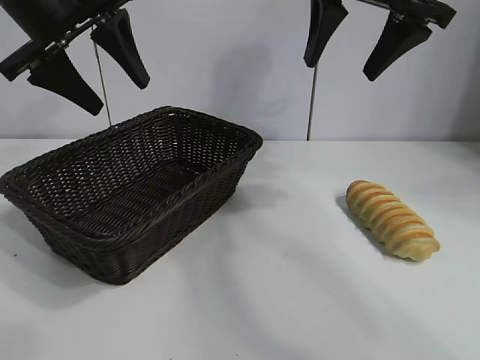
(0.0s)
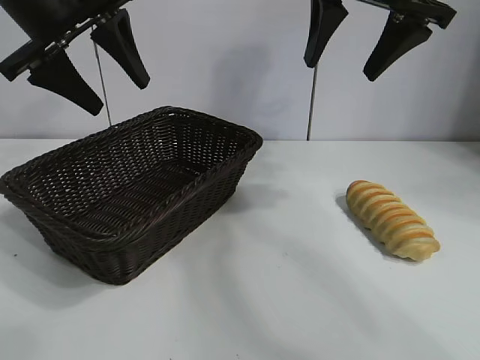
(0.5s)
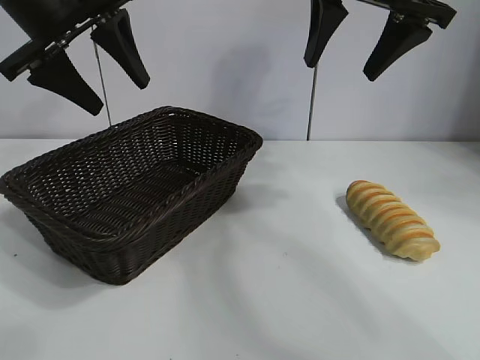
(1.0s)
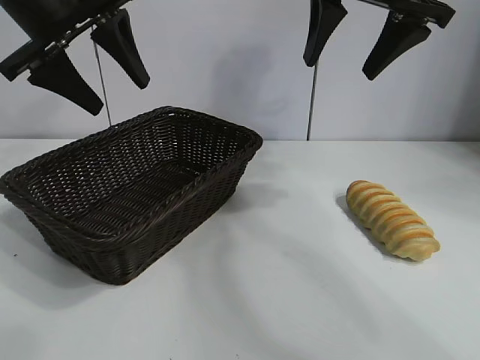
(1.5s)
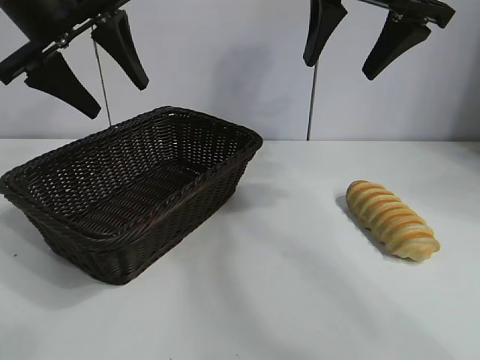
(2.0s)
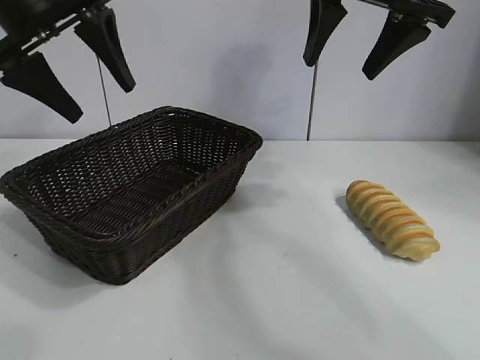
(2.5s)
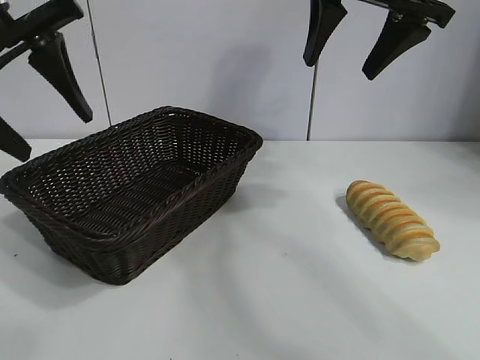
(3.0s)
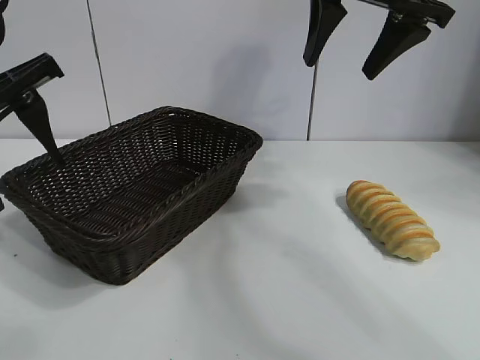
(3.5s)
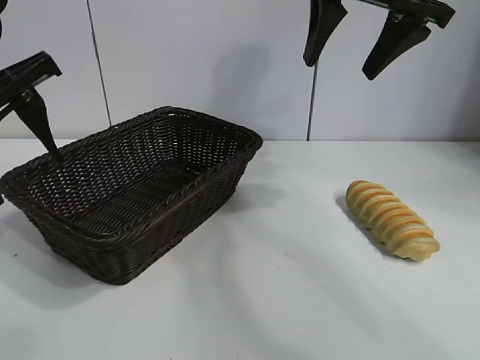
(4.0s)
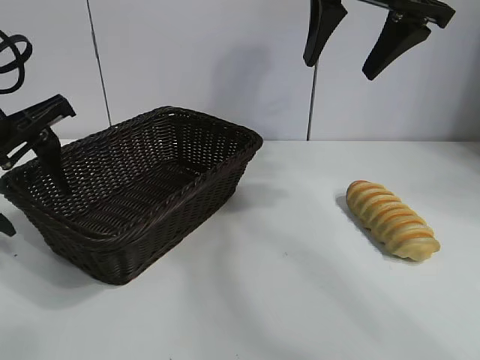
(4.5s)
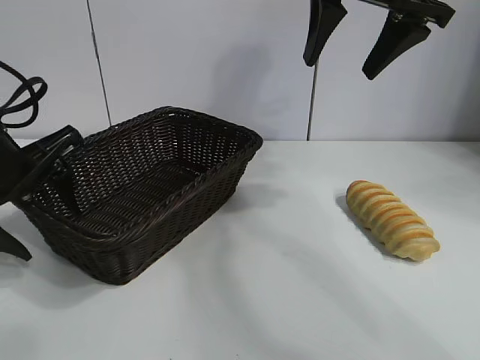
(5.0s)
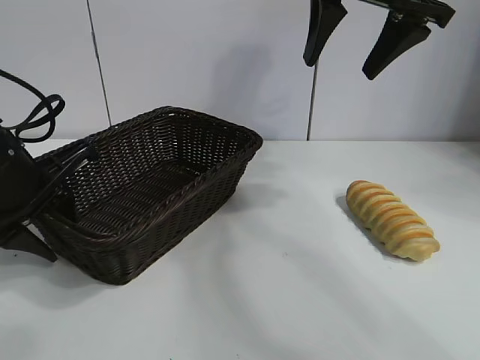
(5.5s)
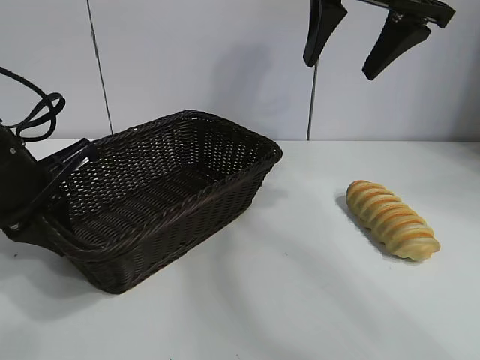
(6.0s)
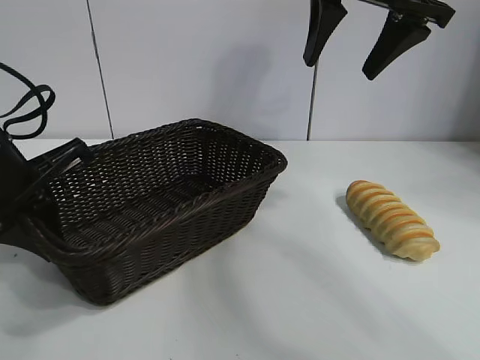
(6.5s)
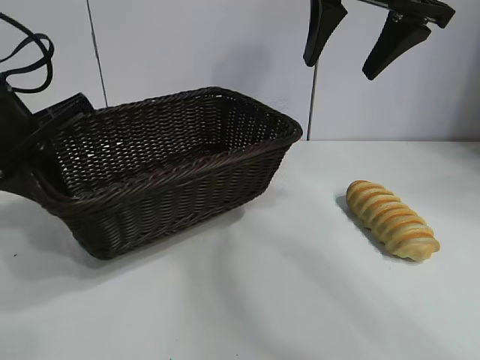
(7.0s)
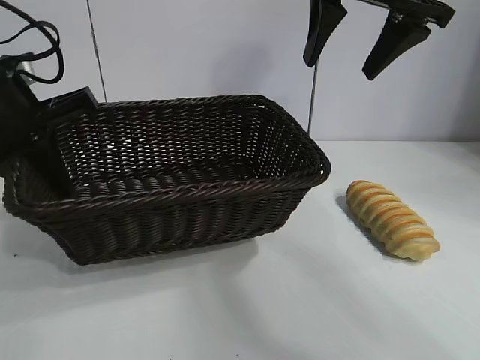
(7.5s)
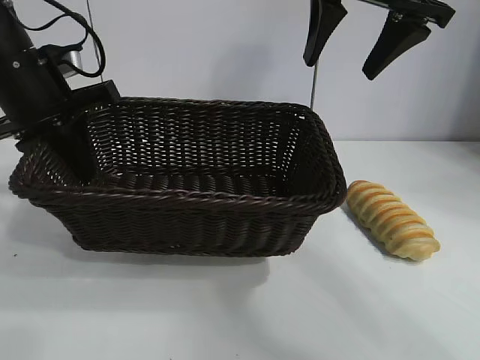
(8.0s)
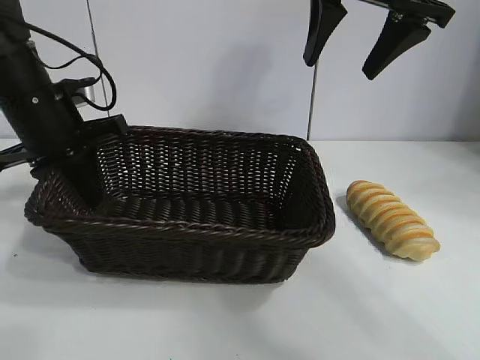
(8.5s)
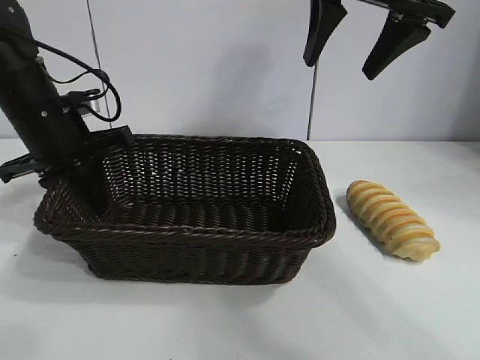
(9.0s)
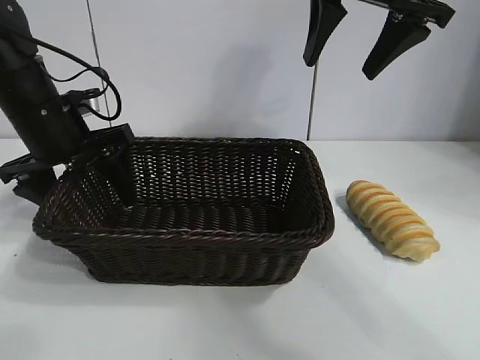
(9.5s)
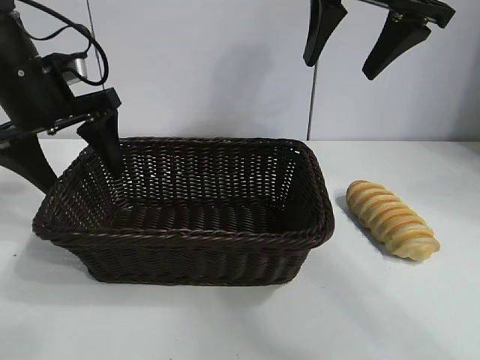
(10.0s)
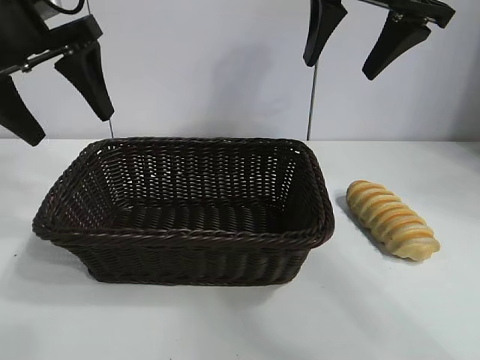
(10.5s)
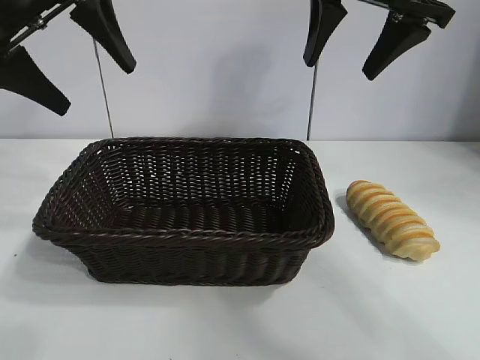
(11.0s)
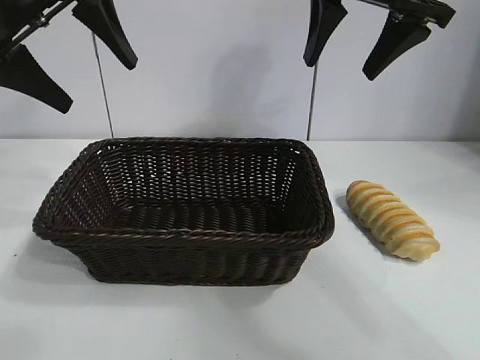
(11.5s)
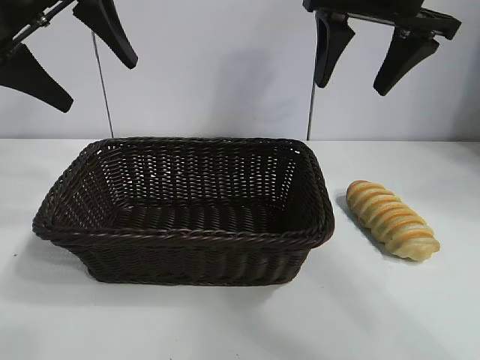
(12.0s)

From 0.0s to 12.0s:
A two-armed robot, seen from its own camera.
Task of the whole recording: pick up the long bread and put it into the basket.
Step, from 2.0s to 5.5s: Grasp the basket with the left gripper.
Step, from 6.0s to 9.5s: Place the basket in the center of the table with the left gripper.

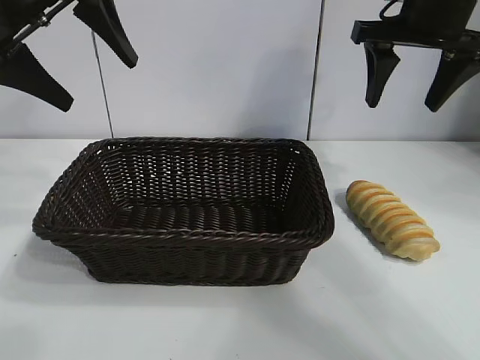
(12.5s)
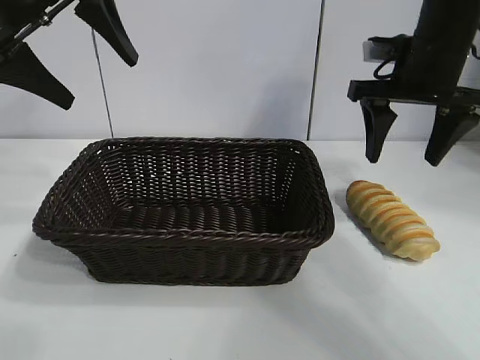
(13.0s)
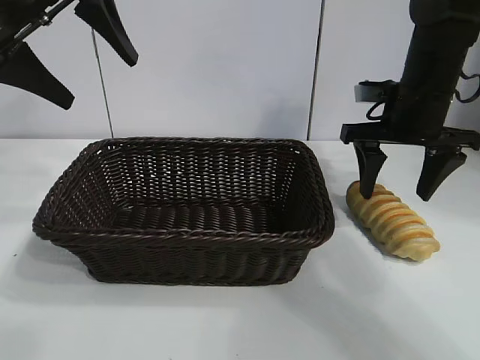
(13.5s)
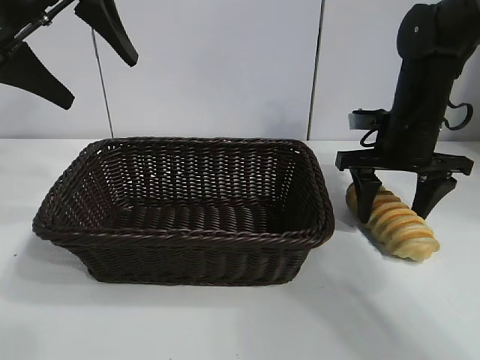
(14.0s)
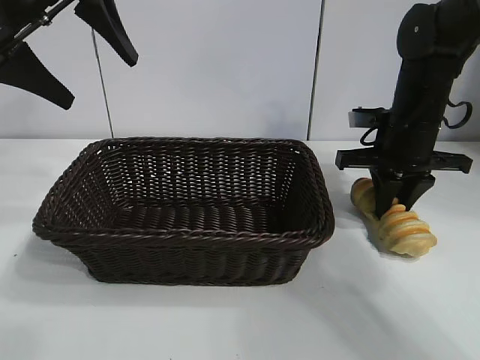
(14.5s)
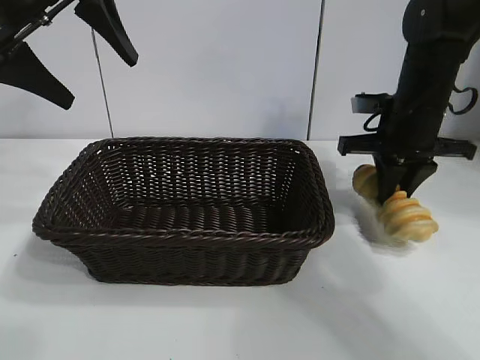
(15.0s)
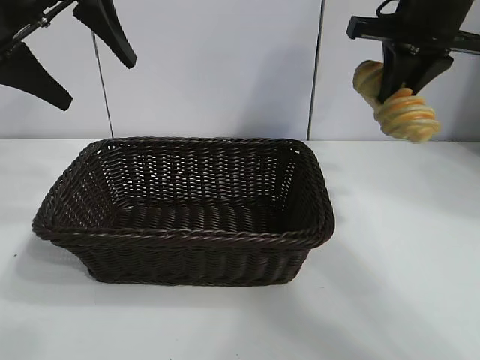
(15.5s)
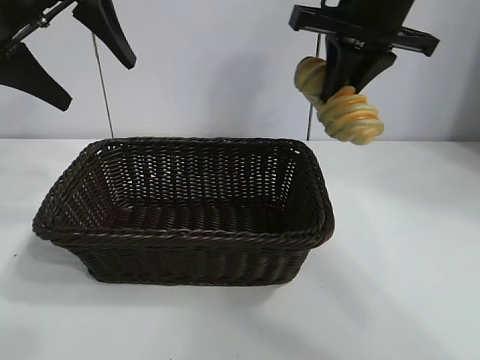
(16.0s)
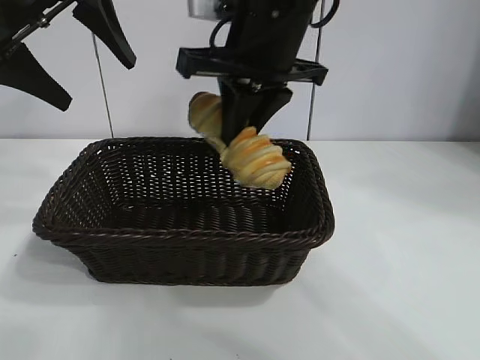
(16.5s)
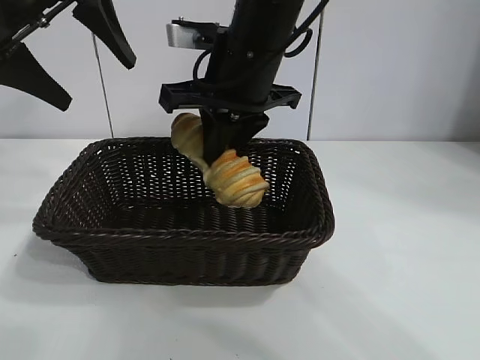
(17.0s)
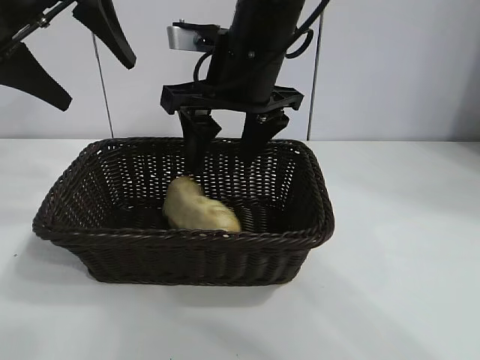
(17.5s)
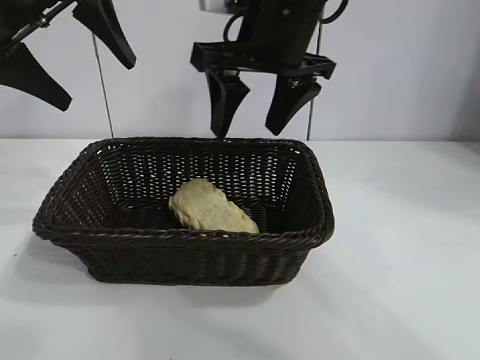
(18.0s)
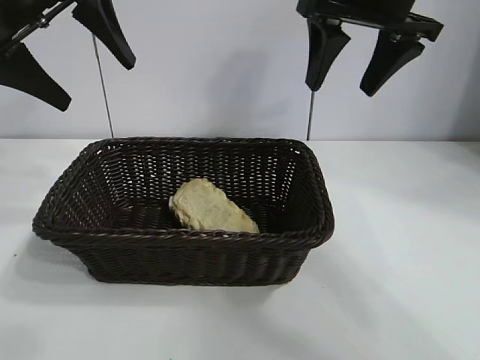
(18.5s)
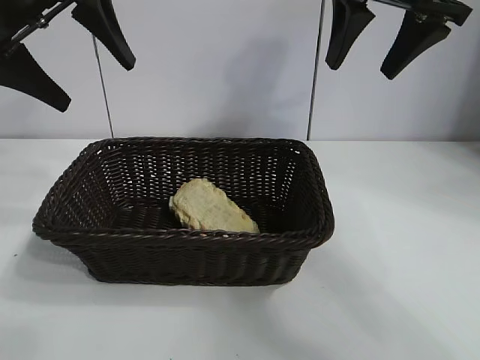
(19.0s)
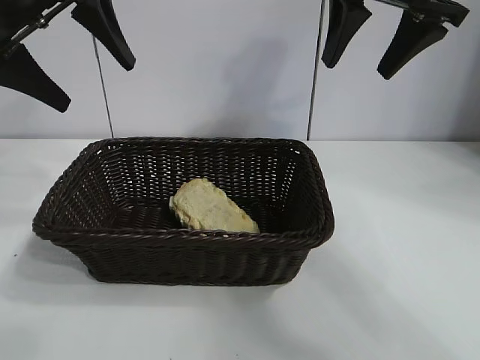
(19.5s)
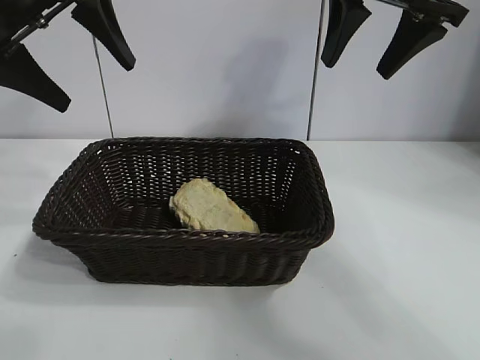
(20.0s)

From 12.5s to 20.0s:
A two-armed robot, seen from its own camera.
Task of the whole recording: pick up the long bread and put it into the basket.
Step, from 12.5s to 14.5s: Grasp the long bread with right gripper.
Step, from 15.0s to 17.5s: Place the long bread in the basket with right gripper.
